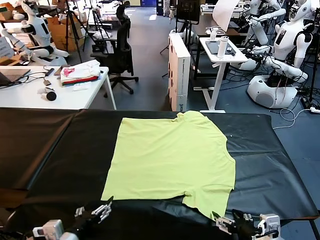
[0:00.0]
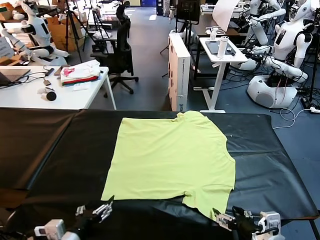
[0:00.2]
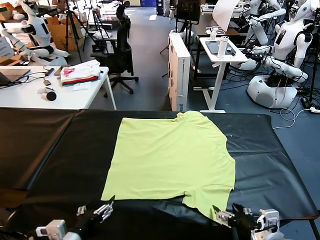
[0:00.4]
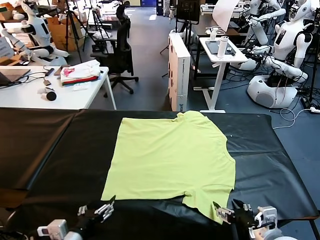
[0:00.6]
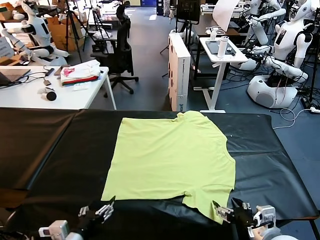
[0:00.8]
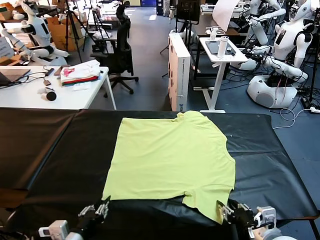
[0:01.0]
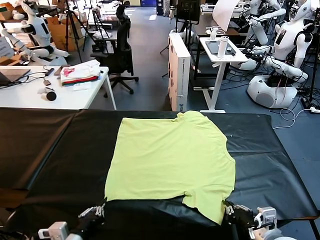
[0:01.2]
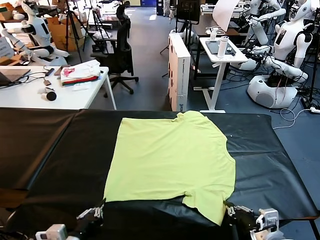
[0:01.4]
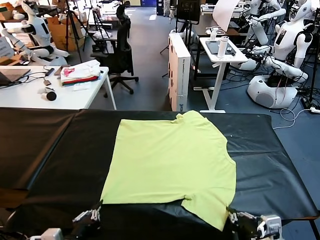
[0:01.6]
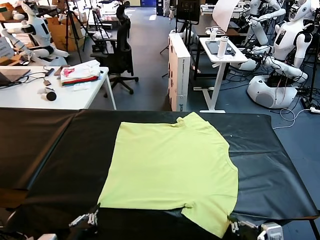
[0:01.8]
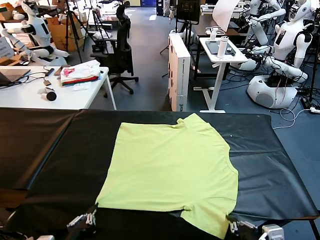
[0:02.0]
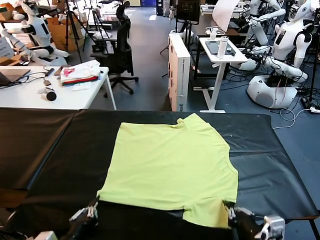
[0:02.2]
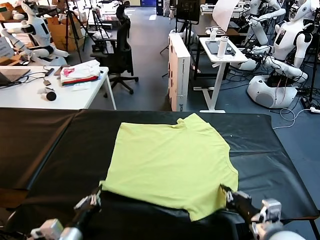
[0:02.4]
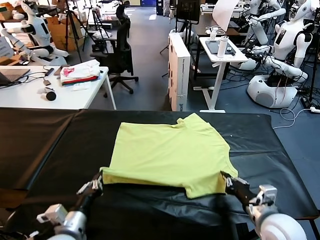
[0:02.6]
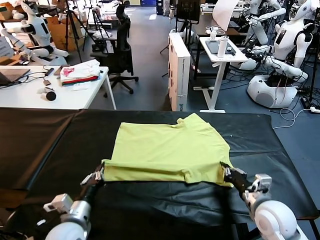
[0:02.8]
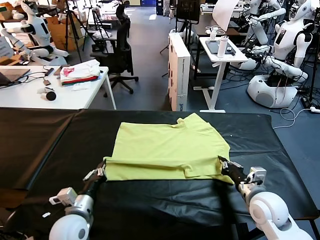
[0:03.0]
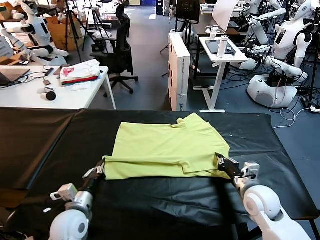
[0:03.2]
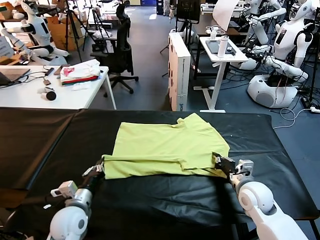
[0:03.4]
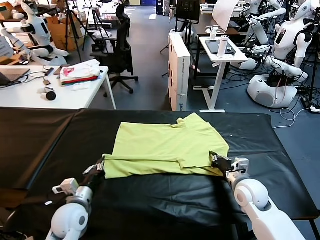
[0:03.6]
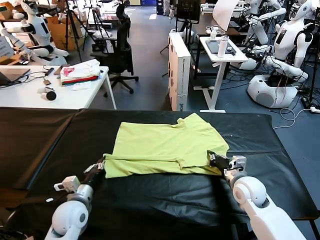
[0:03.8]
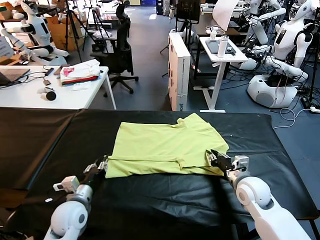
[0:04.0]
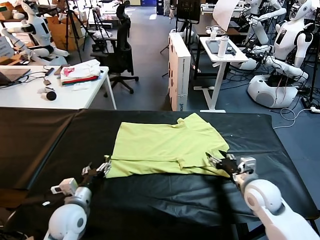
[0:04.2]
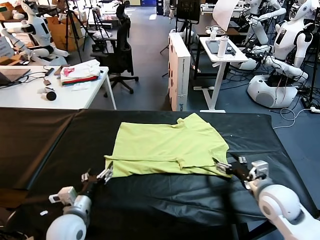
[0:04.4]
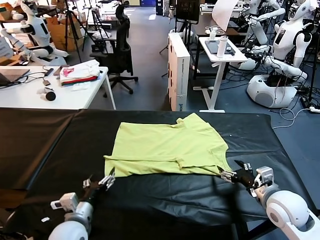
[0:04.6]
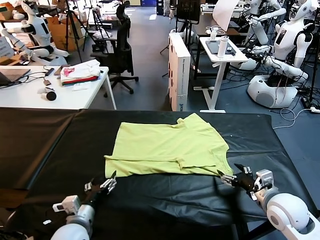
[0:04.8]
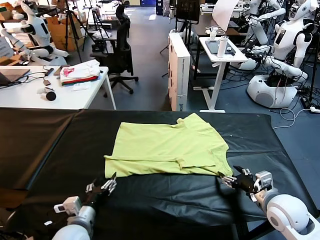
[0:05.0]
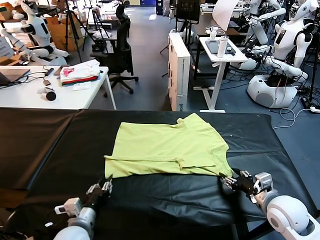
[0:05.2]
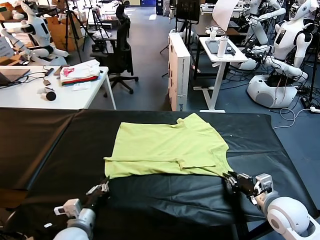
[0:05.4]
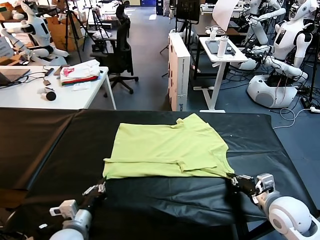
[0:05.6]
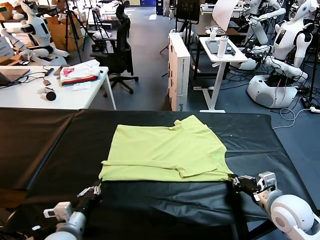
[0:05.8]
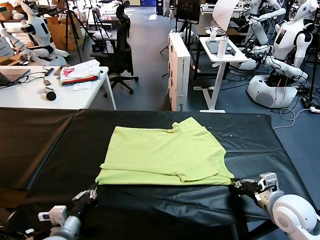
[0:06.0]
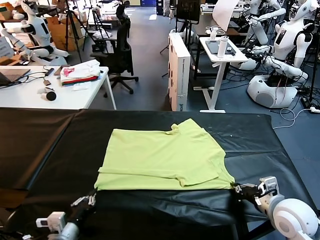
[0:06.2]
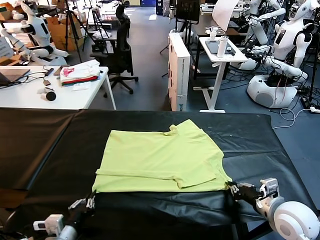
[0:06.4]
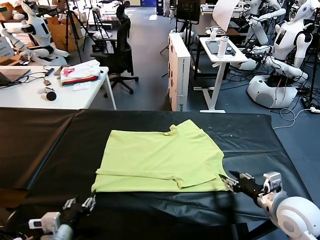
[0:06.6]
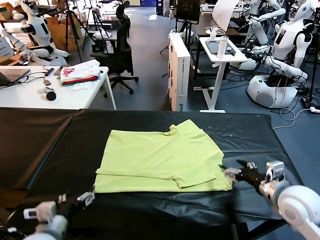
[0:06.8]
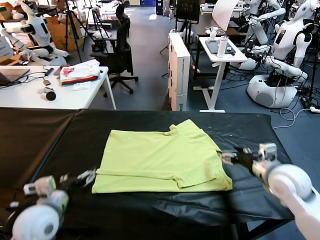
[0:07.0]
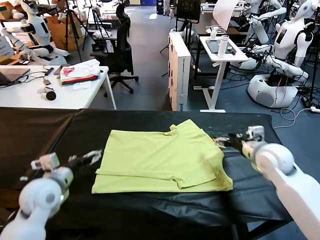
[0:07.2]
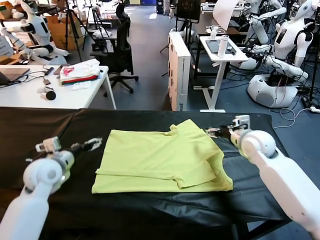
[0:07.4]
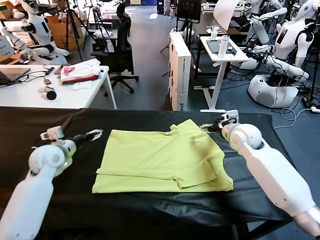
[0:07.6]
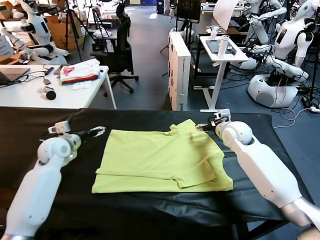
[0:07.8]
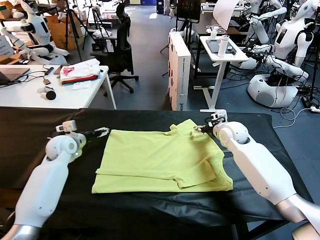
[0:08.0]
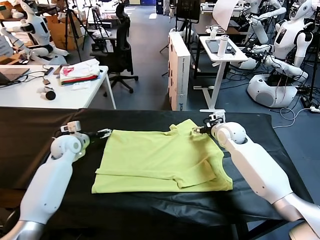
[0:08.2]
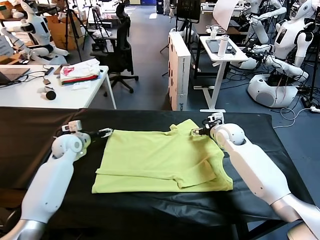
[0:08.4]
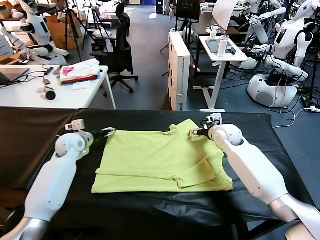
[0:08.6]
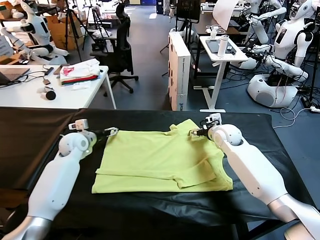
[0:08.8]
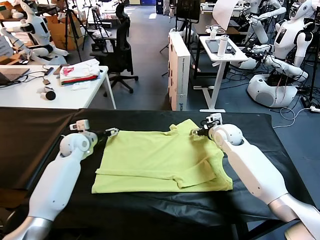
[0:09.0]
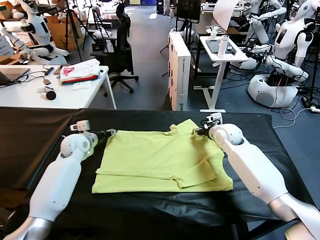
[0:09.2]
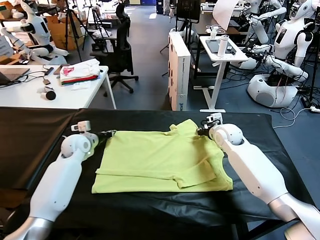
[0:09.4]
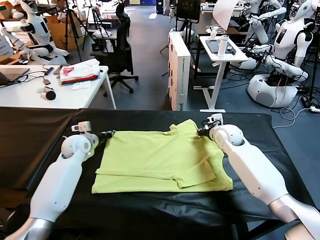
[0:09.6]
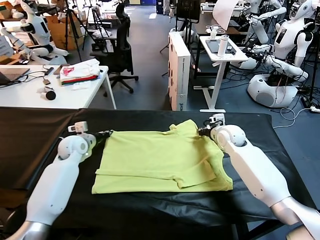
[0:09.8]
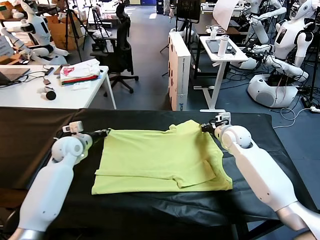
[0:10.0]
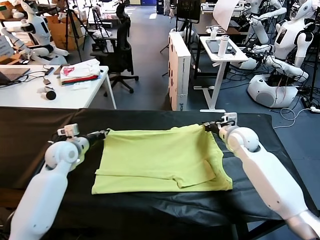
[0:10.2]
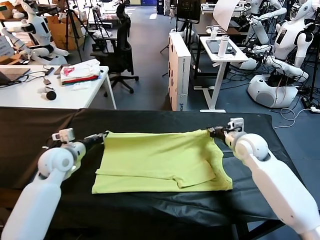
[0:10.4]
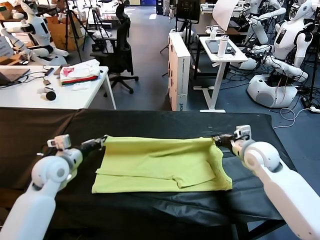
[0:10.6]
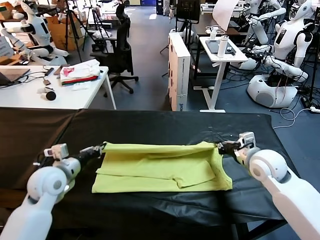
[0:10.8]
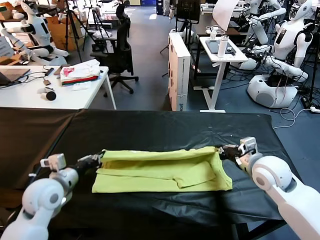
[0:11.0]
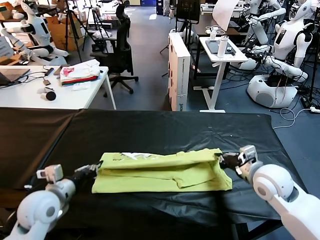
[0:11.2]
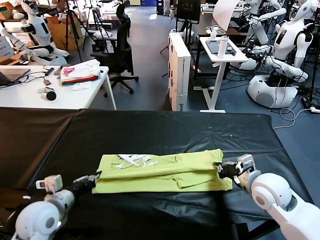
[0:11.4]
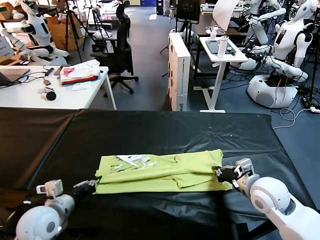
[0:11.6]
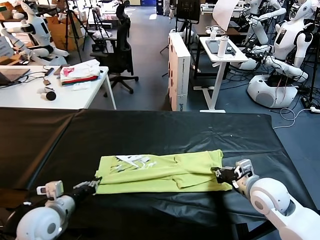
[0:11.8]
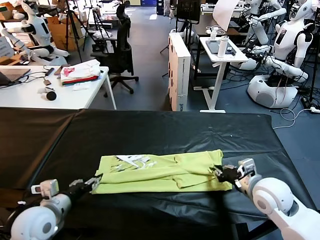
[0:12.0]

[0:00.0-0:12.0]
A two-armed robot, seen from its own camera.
Task of the whole recording: fold and organize the clothes.
Step, 0:00.0 to 0:01.6: use both grippers simultaneously to clamp the lower edge of the clothing fabric.
Step, 0:01.8 to 0:04.2: use both grippers to drag the lower edge of the fabric forward and fold it over the upper edge.
Step, 0:04.4 to 0:06.6: Drag the clothes downward with both gripper.
Step, 0:06.8 to 0:09.8: use both grippers simultaneously to clamp the upper edge of the clothing fabric.
0:01.6 to 0:03.0: Both grippers travel together forward, some 20 cm.
0:03.0 to 0:04.4: The right gripper is displaced backward by about 5 cm, and opens. The left gripper opens up.
0:04.4 to 0:06.0: The left gripper heads backward, covering approximately 5 cm, and closes its fingers. Meanwhile the right gripper closes its fingers.
0:06.0 to 0:07.6: The two grippers go approximately 30 cm forward. The left gripper opens its fingers. Meanwhile the right gripper opens its fingers.
0:07.6 to 0:09.0: The left gripper shifts by roughly 5 cm, and closes its fingers; the right gripper closes up.
0:09.0 to 0:10.4: The right gripper shifts approximately 15 cm backward and to the right. Meanwhile the left gripper shifts approximately 15 cm backward, and closes.
0:10.4 to 0:12.0: The left gripper is displaced backward by about 10 cm, and opens its fingers; the right gripper shifts about 5 cm backward, and opens its fingers.

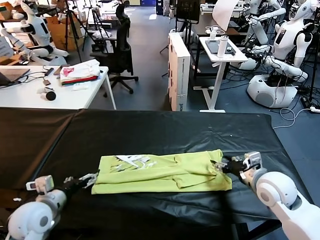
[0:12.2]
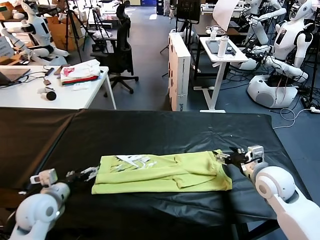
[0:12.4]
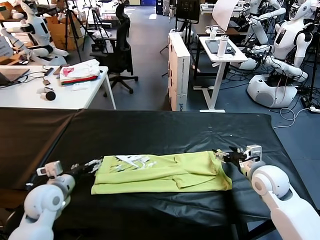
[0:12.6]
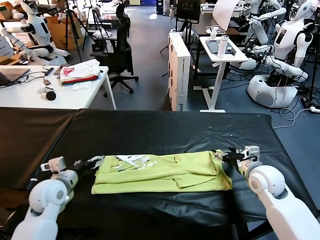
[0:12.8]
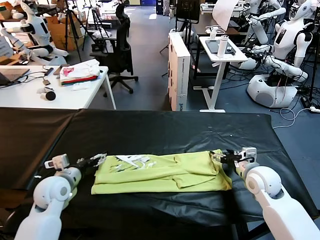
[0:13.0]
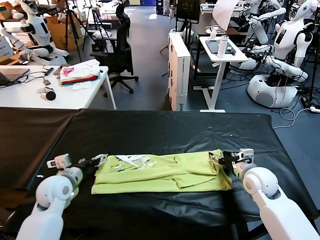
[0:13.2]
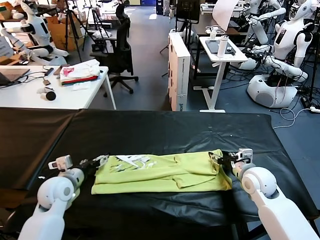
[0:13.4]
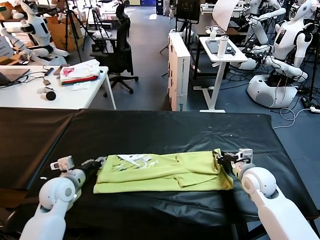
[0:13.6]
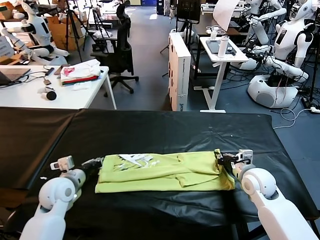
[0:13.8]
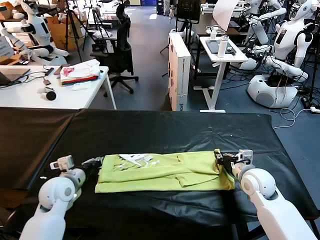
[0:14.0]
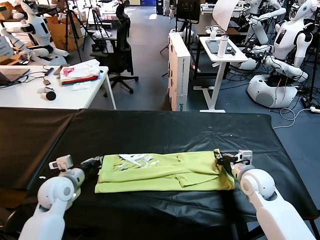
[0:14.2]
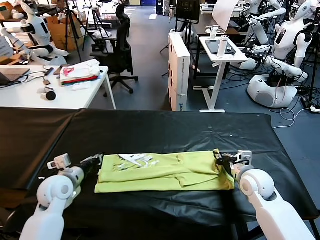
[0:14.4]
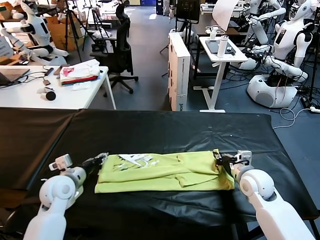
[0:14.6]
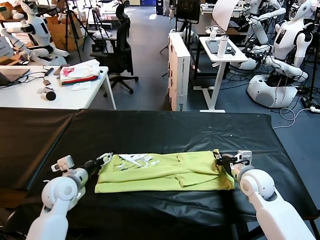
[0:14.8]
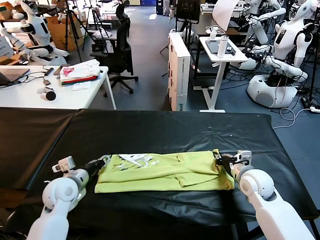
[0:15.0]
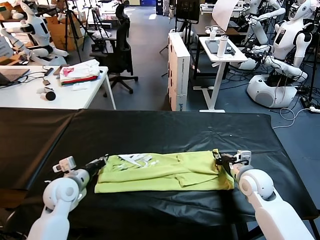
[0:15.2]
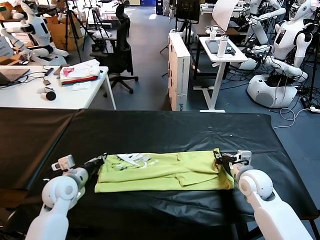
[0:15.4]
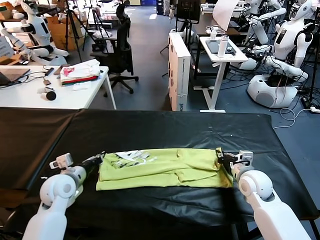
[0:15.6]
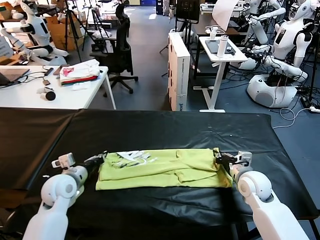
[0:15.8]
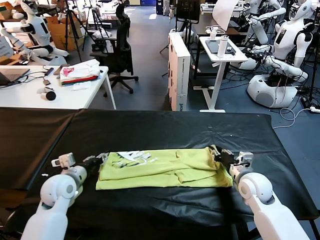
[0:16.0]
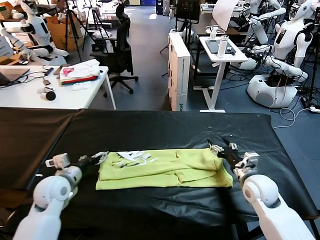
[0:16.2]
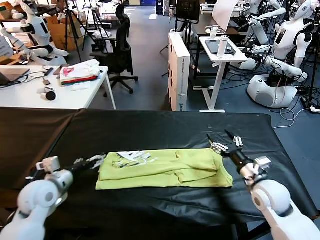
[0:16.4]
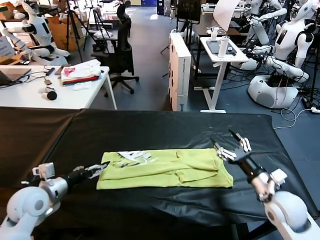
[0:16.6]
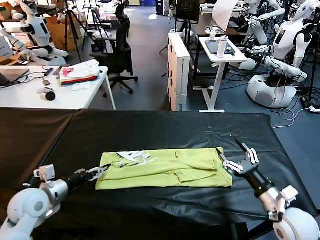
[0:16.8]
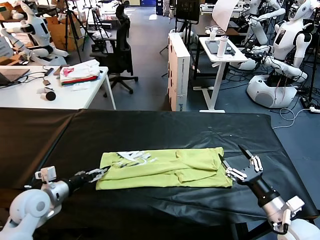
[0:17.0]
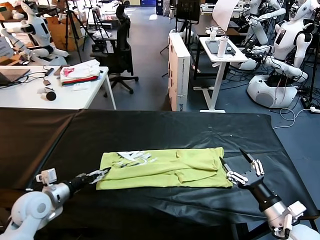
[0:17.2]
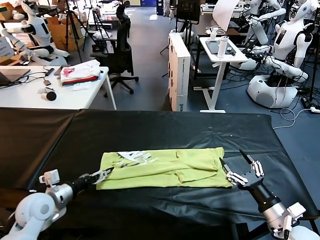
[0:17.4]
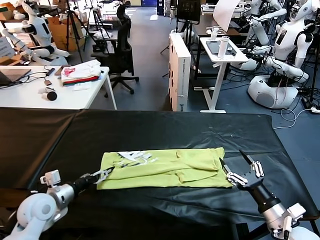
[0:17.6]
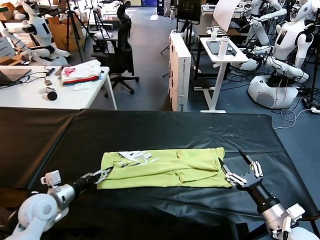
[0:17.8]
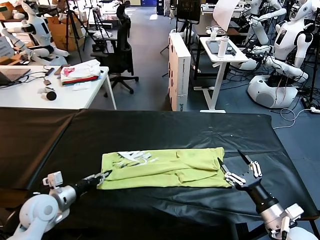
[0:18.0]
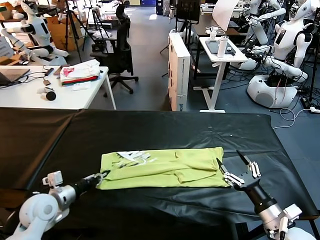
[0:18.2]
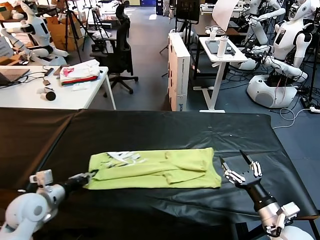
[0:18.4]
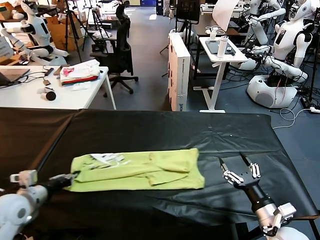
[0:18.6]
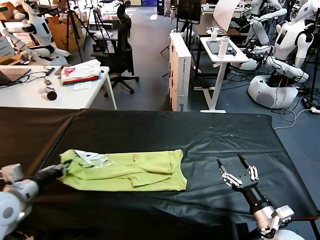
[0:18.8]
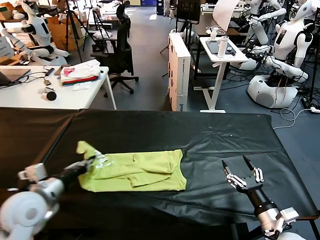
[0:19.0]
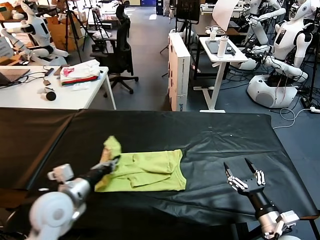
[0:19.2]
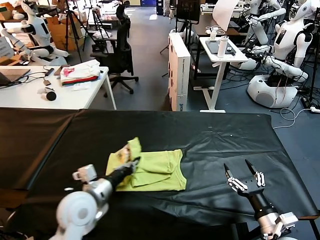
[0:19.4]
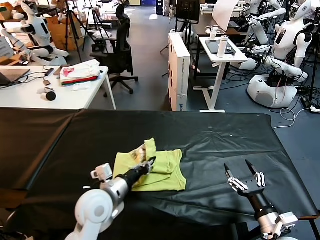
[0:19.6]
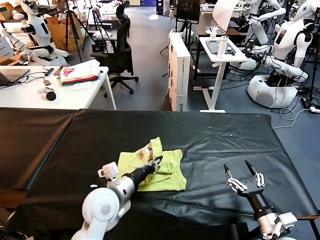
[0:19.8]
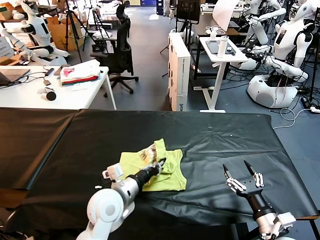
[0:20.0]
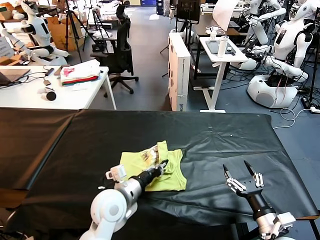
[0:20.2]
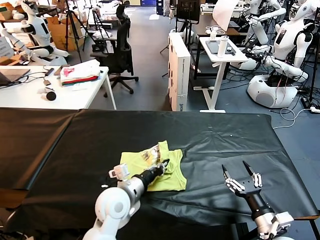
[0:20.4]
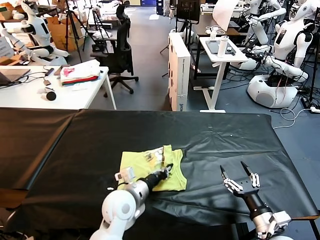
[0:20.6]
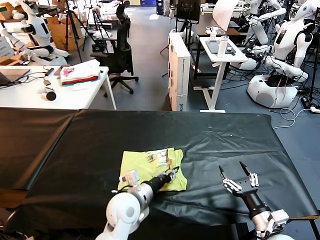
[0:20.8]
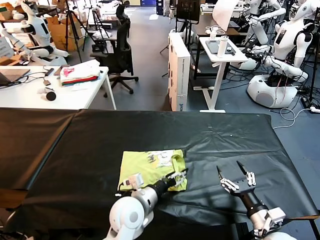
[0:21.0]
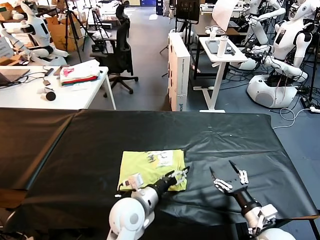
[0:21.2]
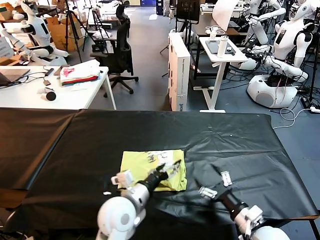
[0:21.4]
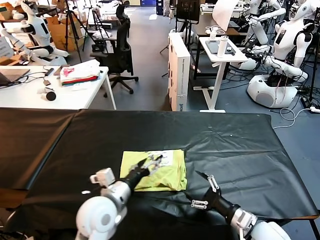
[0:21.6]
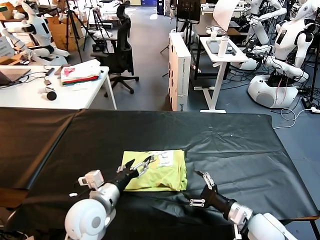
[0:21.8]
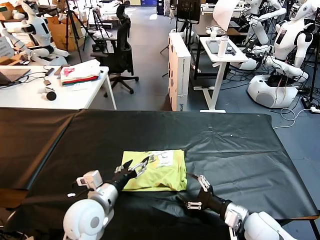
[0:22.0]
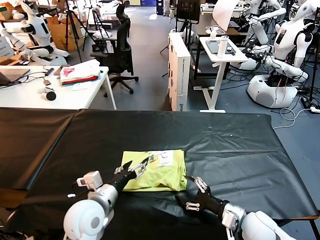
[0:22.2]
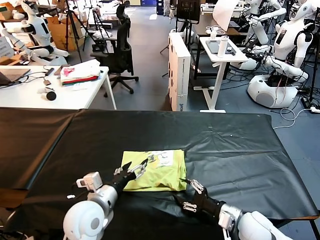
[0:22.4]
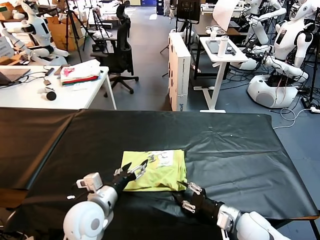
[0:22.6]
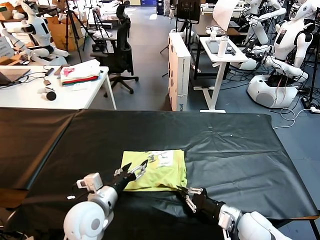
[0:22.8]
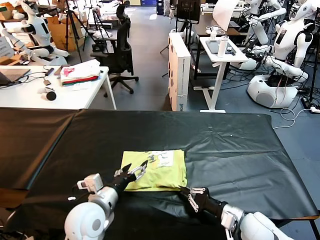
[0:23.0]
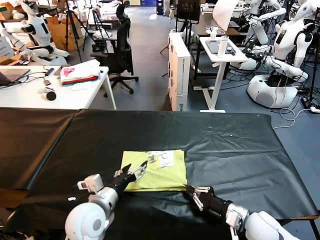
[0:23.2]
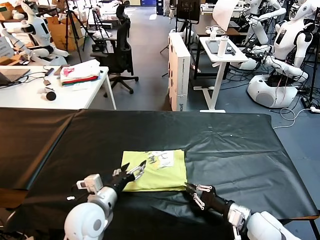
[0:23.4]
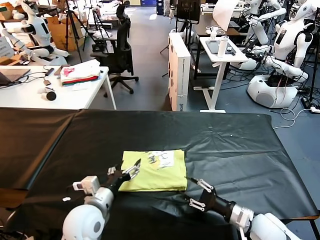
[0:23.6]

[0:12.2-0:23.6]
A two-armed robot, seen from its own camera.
Task of the whole recording: fold and organize the clothes.
Step, 0:12.4 to 0:18.2: use the left gripper to clamp the left edge of the fabric.
Step, 0:18.4 to 0:21.0: use the left gripper to drag the left edge of the fabric to the left and folds it over the right edge.
0:12.2 to 0:13.6: The left gripper ends up about 5 cm from where it was, and closes its fingers. Meanwhile the right gripper shifts by about 5 cm, and closes up.
0:13.6 to 0:15.0: The left gripper opens and closes again.
0:15.0 to 0:16.4: The right gripper shifts some 15 cm backward, and opens its fingers, while the left gripper shifts roughly 10 cm to the left and backward, and opens its fingers.
0:16.4 to 0:17.8: The left gripper closes, while the right gripper goes some 5 cm backward.
0:17.8 to 0:19.4: The left gripper shifts roughly 10 cm to the right and upward.
0:19.4 to 0:20.8: The left gripper shifts about 15 cm to the right and downward.
0:20.8 to 0:22.2: The right gripper is displaced forward by some 5 cm. The left gripper is displaced to the left by about 10 cm, and opens its fingers.
0:22.2 to 0:23.6: The right gripper closes.
